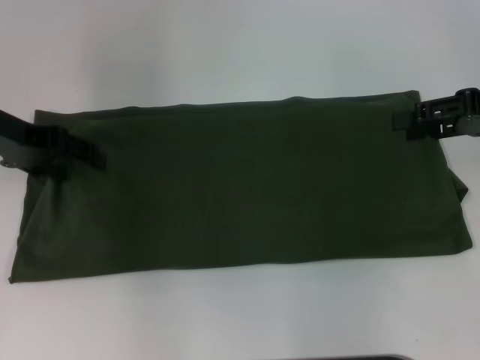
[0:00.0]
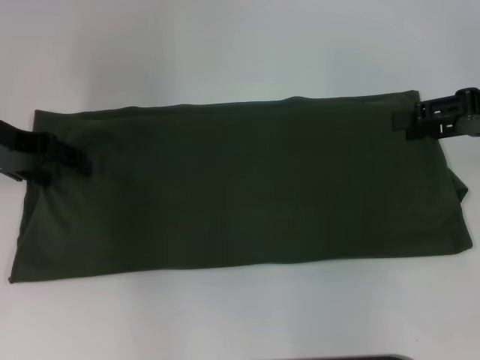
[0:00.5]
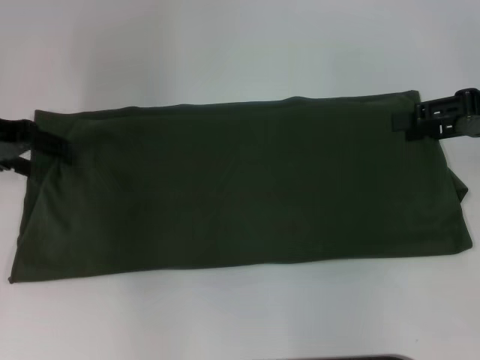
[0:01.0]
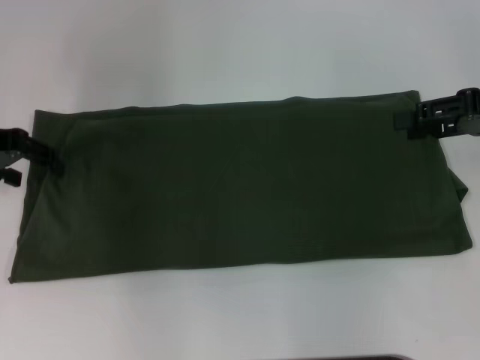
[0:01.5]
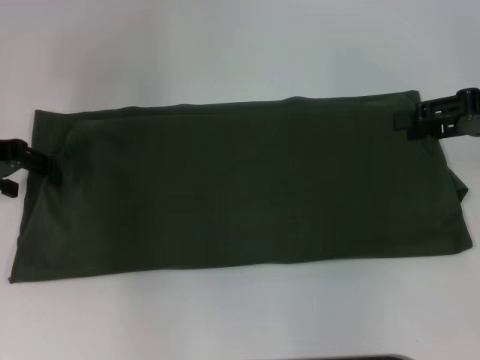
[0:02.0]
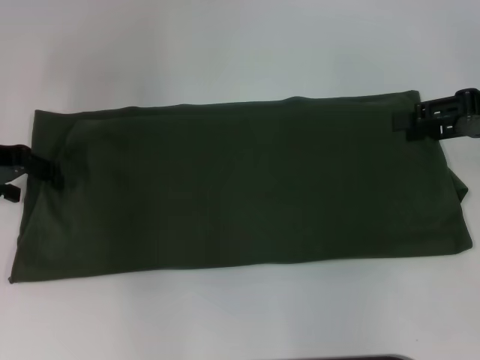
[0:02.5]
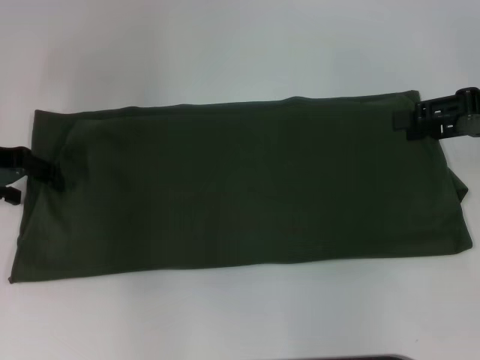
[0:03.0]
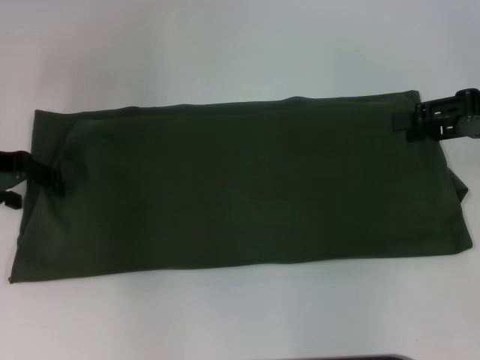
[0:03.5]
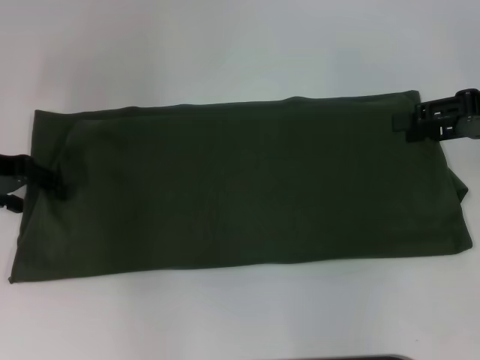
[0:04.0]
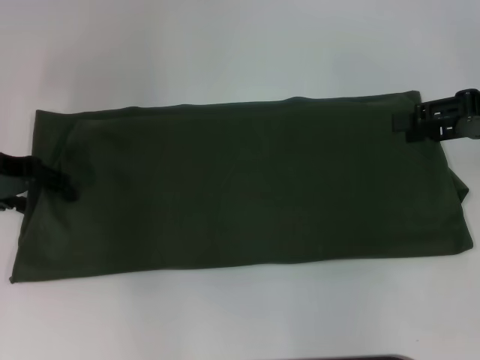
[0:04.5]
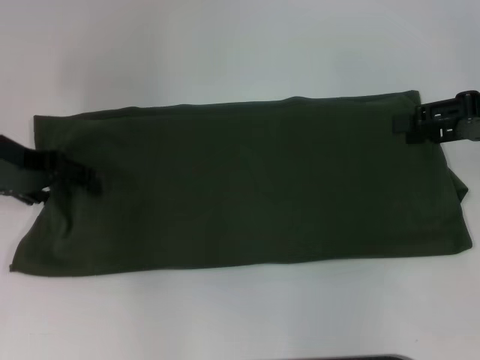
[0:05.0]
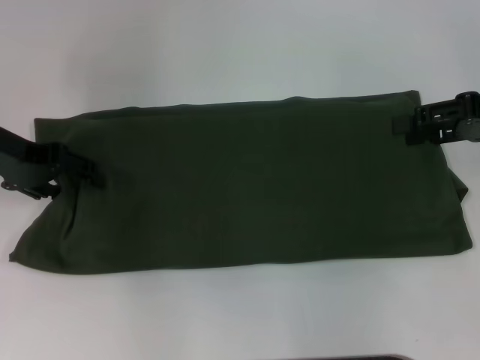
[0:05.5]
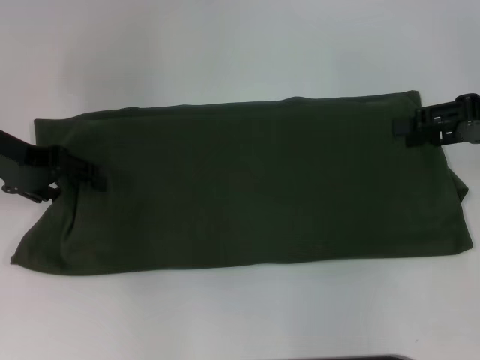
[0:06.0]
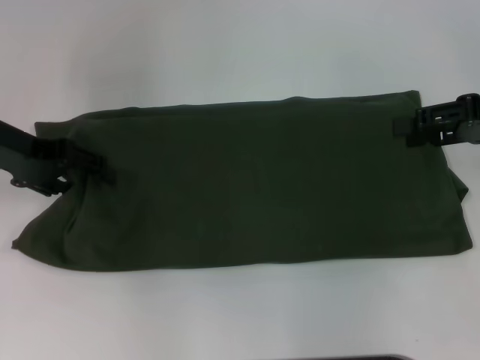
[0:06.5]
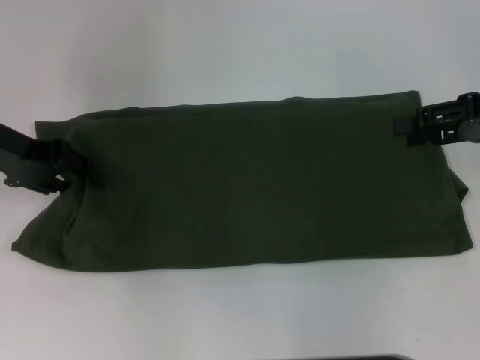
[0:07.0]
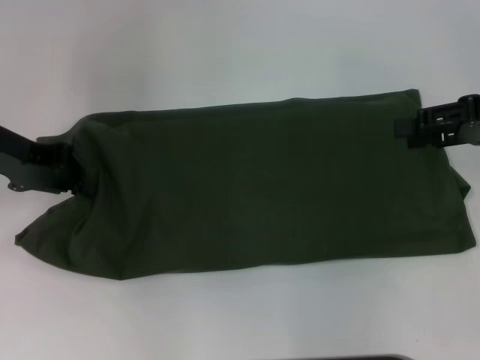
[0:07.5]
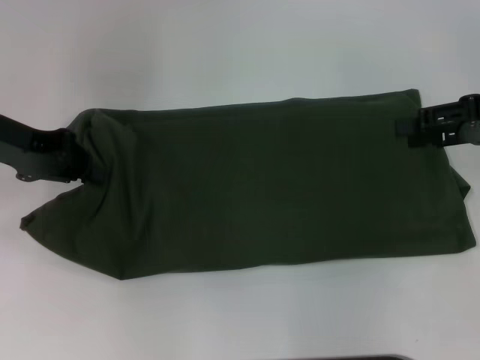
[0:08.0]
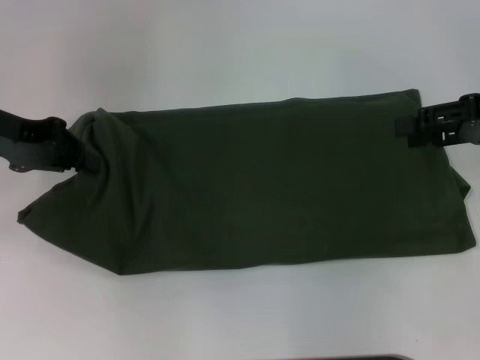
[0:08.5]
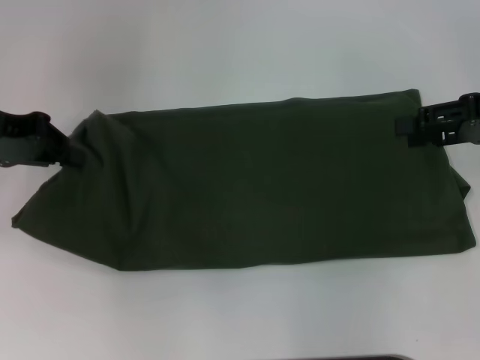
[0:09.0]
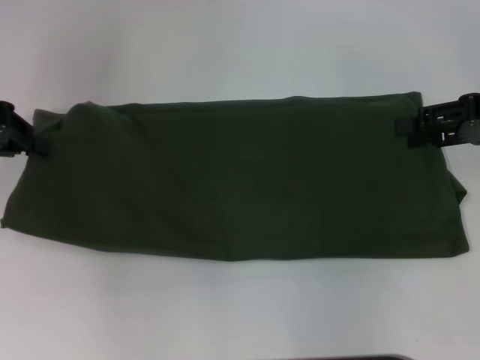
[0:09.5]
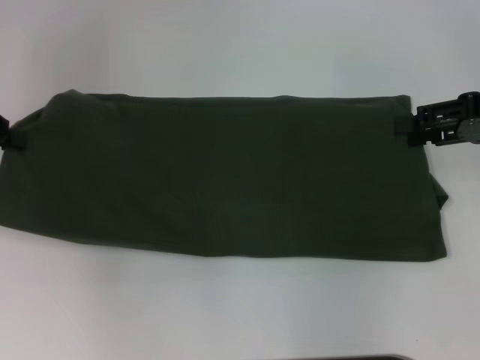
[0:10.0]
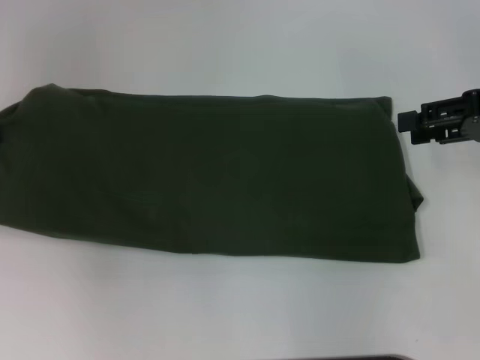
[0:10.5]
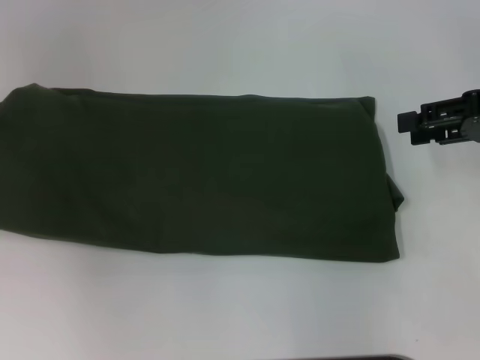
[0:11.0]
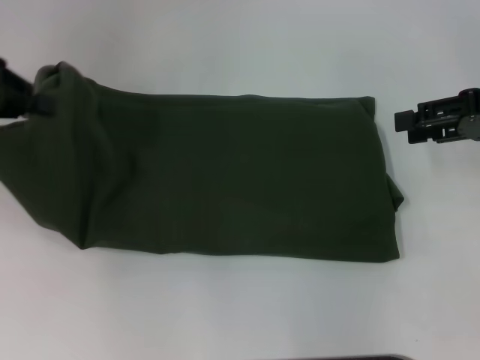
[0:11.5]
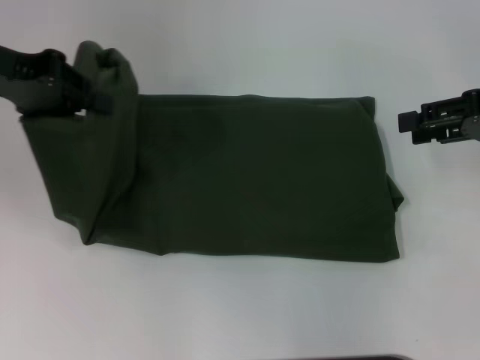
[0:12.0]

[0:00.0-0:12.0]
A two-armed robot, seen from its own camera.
0:00.0 to 0:06.0: There are only small adjustments of the grippers.
0:06.0 to 0:08.0: The left gripper closes.
0:08.0 to 0:10.0: The left gripper shifts about 5 cm to the left.
0:10.0 to 0:12.0: The left gripper shifts roughly 5 cm to the right.

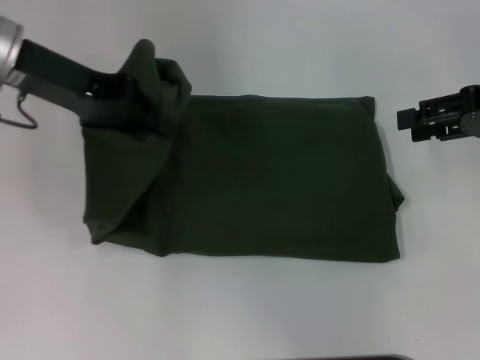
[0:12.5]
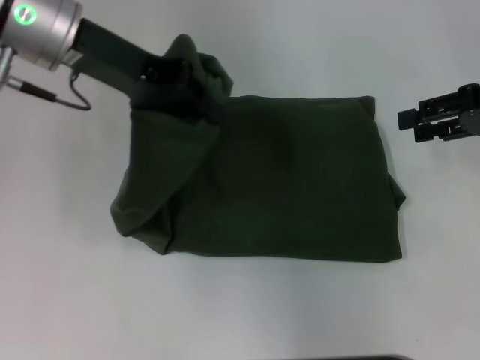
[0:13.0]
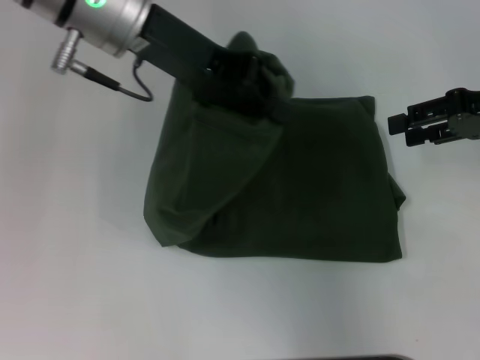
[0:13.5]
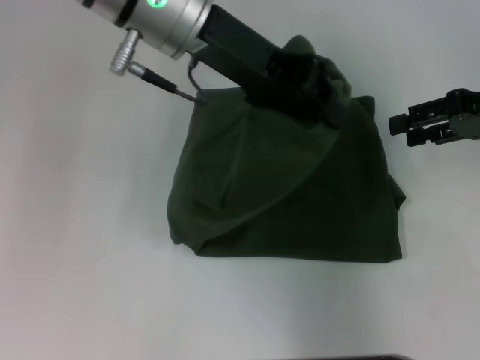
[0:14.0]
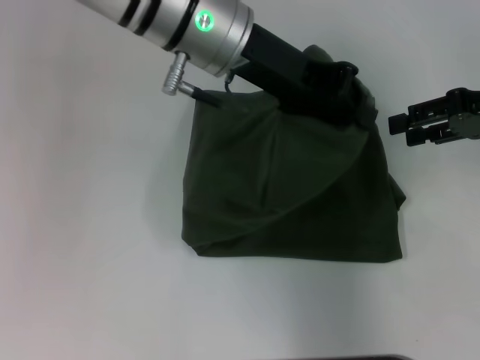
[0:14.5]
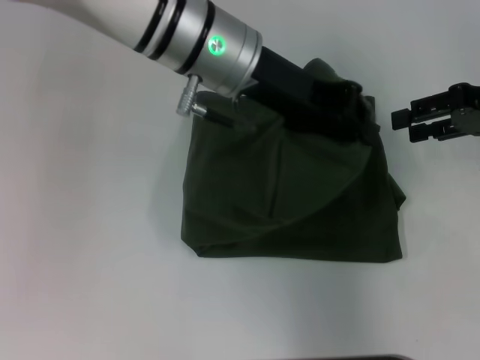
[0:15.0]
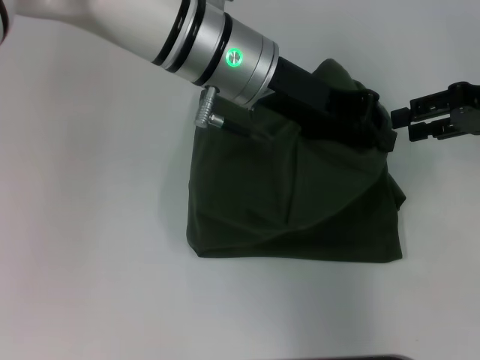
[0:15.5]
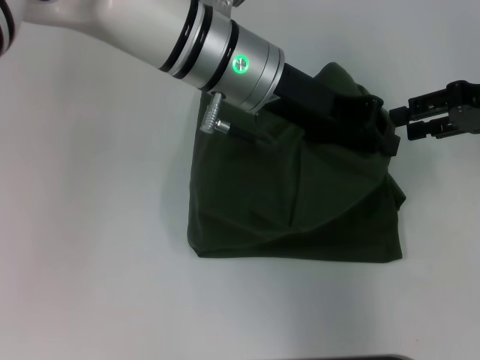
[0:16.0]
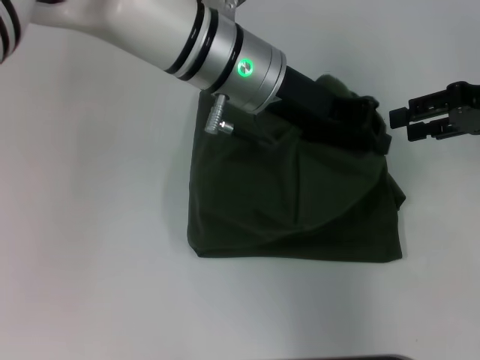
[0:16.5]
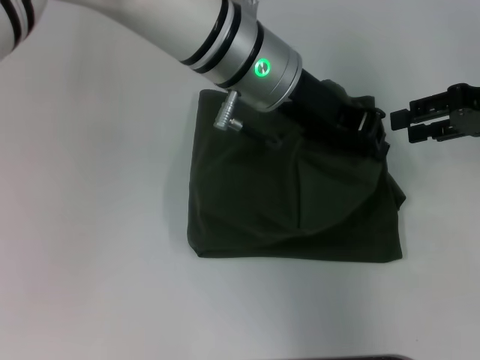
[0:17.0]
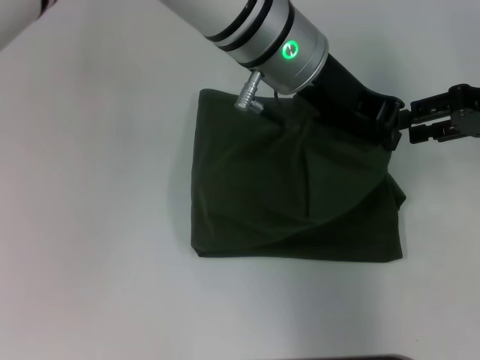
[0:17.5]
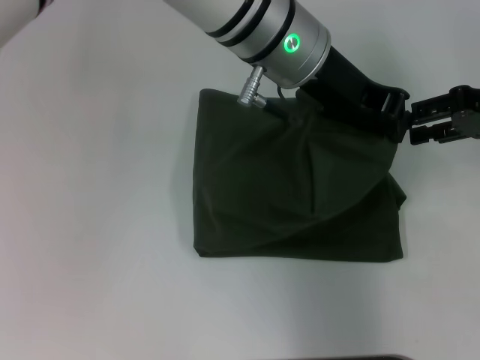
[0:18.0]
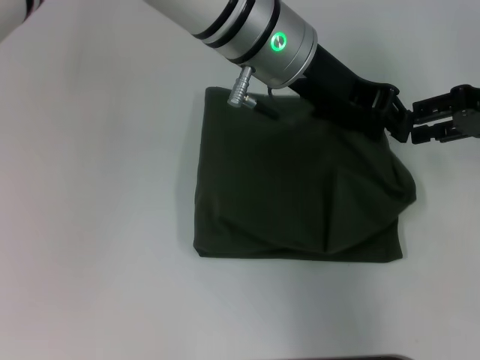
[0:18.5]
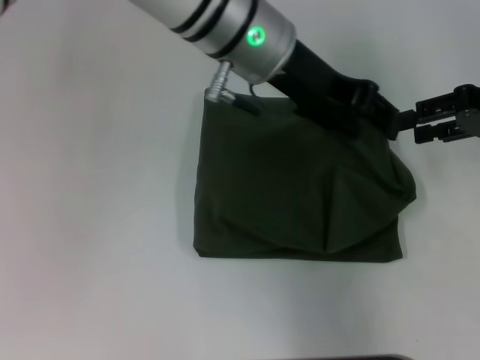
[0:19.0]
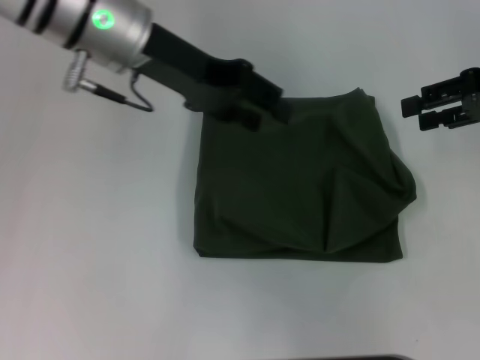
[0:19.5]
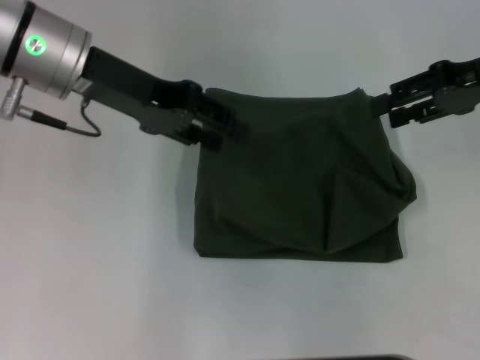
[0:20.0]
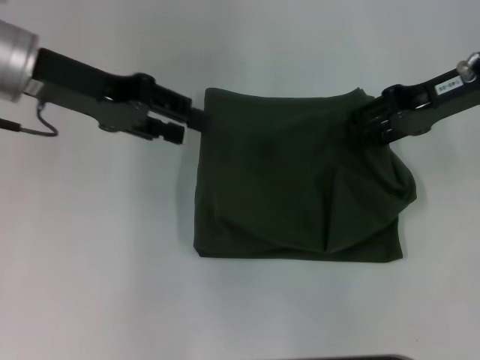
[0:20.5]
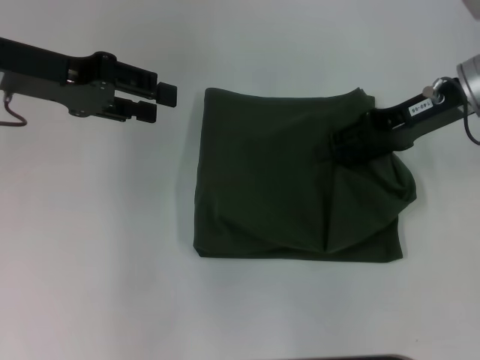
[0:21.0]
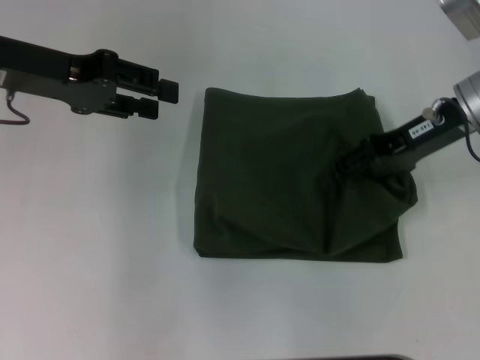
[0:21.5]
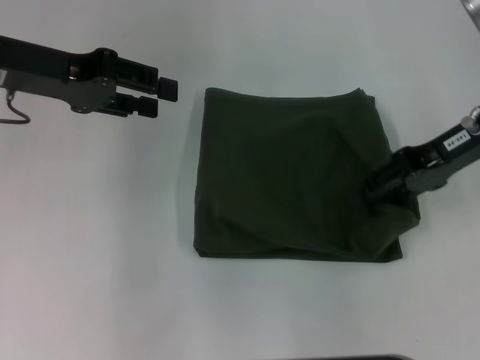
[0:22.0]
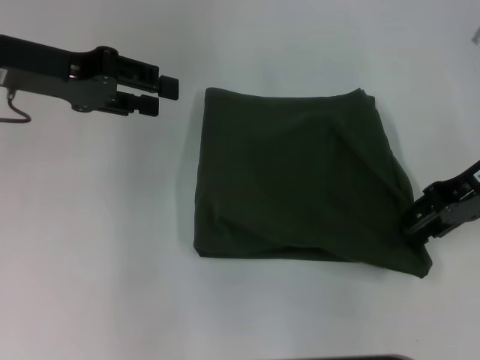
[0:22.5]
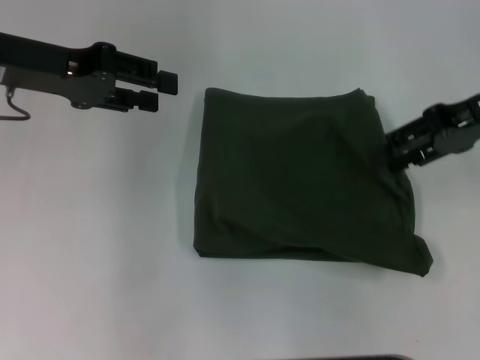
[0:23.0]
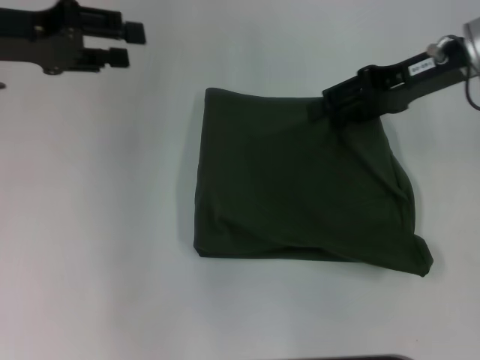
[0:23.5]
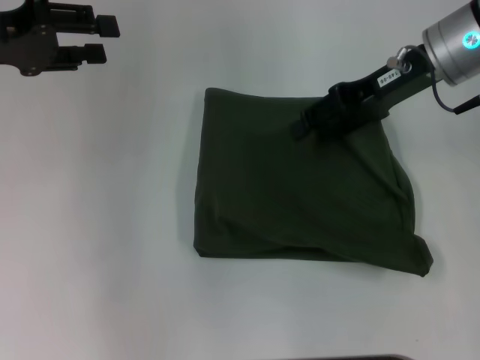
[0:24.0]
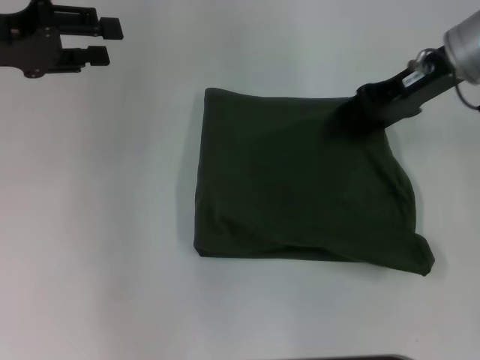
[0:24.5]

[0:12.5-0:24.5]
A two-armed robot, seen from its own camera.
Step, 0:12.5 to 0:18.5: Fold the clothes with your left hand.
0:12.5 to 0:14.5: The left gripper goes about 15 cm to the right.
0:14.5 to 0:16.5: The grippers stay close to where they were, moving slightly.
0:16.5 to 0:18.5: The grippers make only small movements.
0:18.5 to 0:20.5: The left gripper is displaced to the left by about 20 cm, and opens its fingers. The right gripper moves to the left, roughly 5 cm.
0:22.5 to 0:24.5: The right gripper is displaced forward and to the left by about 10 cm.

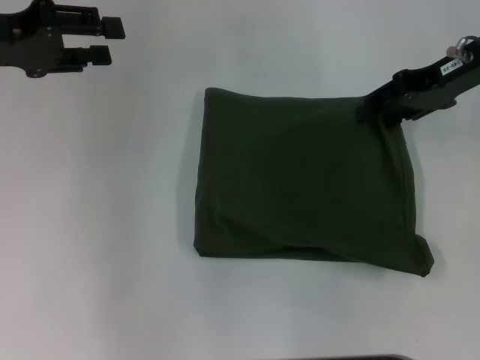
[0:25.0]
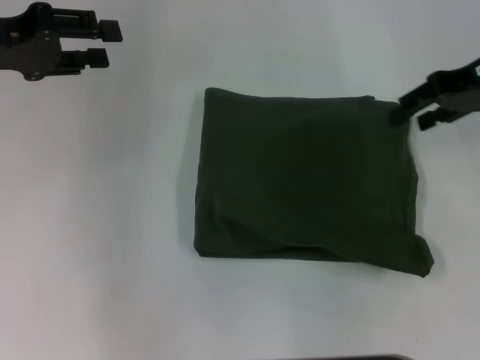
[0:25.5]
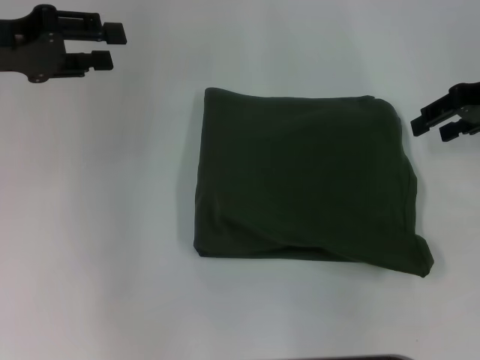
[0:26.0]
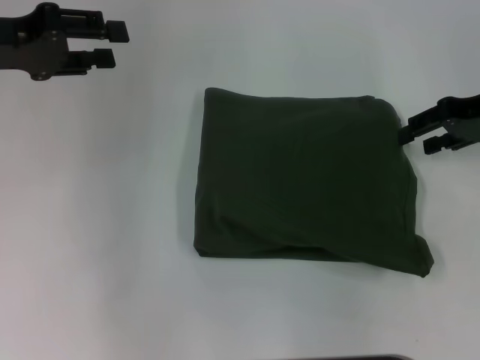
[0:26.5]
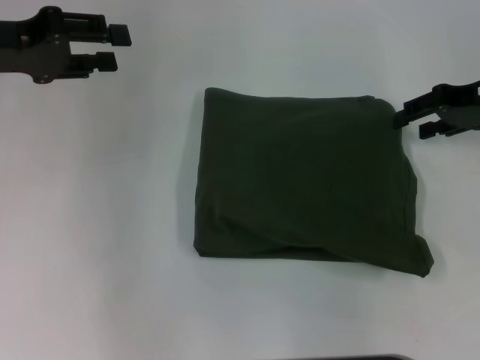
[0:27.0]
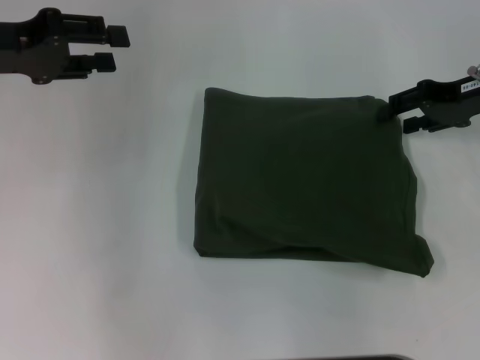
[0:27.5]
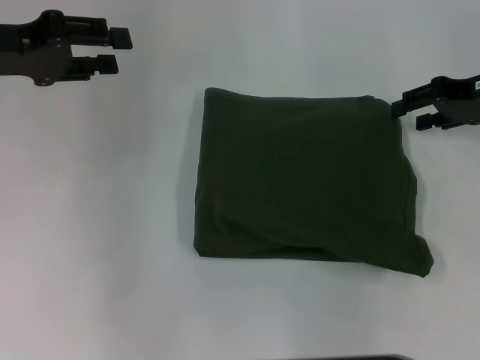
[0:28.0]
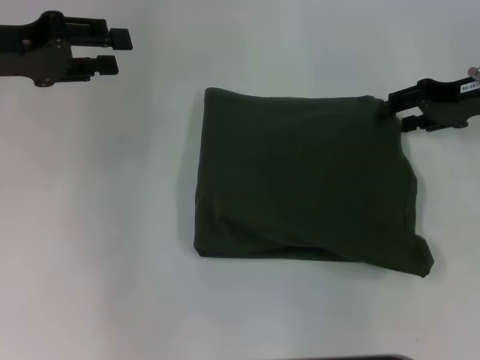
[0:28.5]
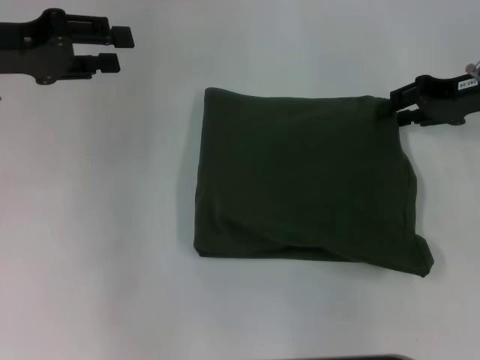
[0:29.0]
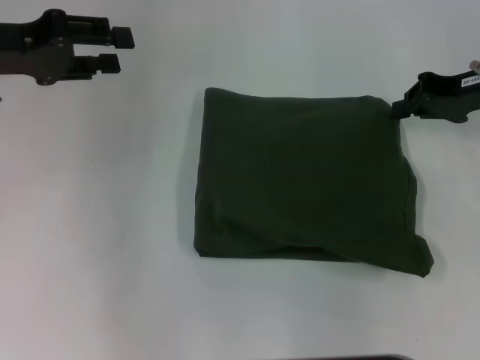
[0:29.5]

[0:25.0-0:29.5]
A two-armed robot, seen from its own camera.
0:25.0 to 0:27.0: The right gripper changes place by approximately 5 cm.
0:27.0 to 0:29.5: The right gripper closes.
